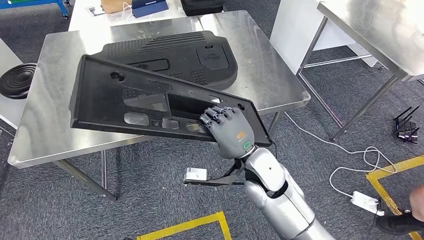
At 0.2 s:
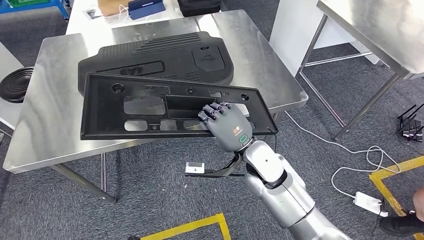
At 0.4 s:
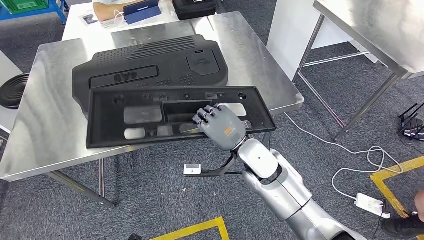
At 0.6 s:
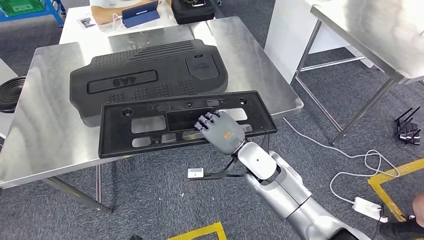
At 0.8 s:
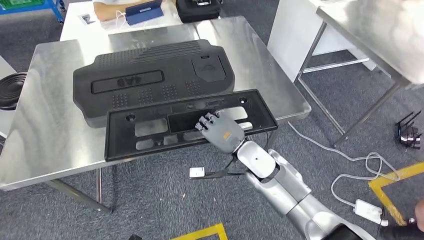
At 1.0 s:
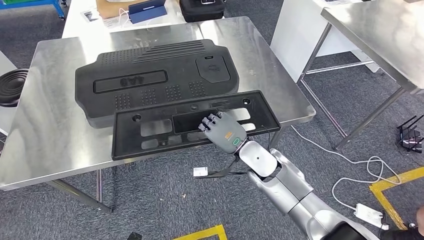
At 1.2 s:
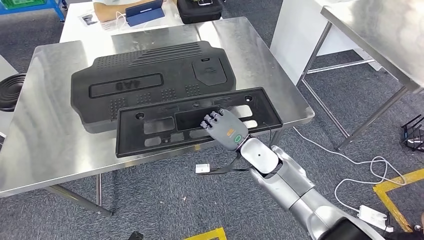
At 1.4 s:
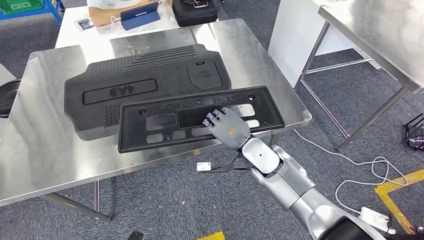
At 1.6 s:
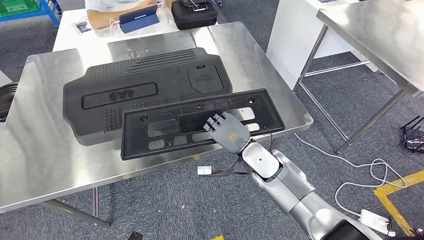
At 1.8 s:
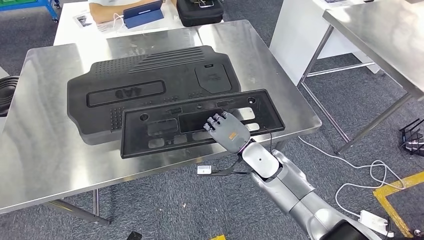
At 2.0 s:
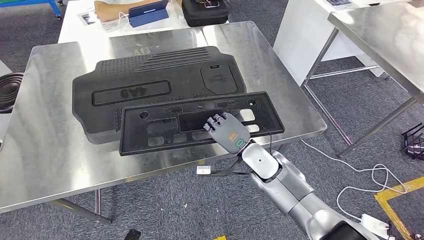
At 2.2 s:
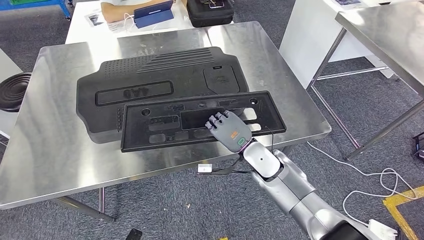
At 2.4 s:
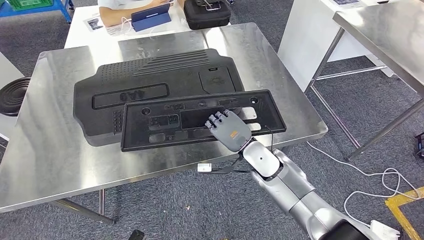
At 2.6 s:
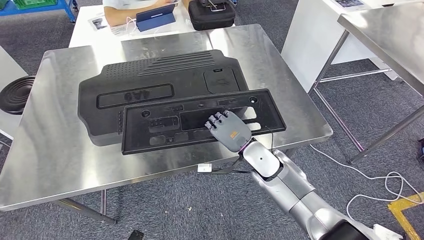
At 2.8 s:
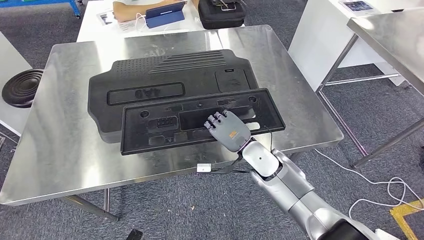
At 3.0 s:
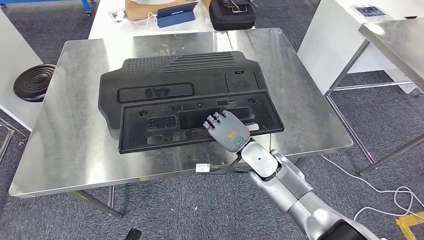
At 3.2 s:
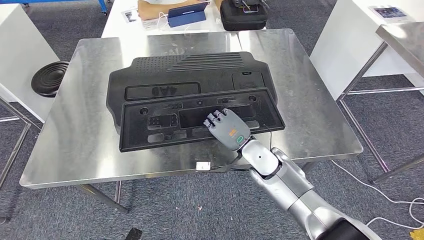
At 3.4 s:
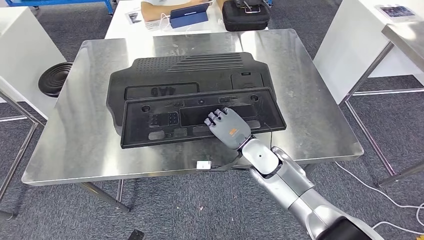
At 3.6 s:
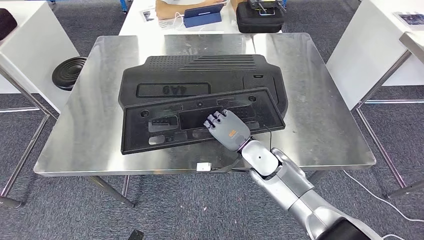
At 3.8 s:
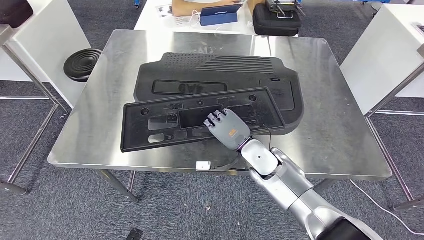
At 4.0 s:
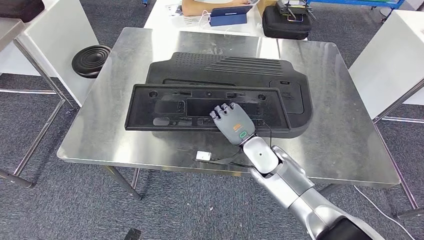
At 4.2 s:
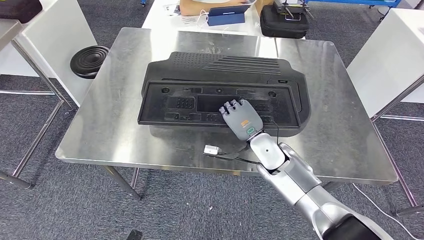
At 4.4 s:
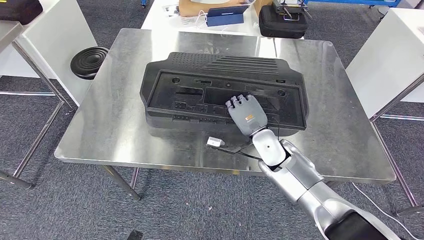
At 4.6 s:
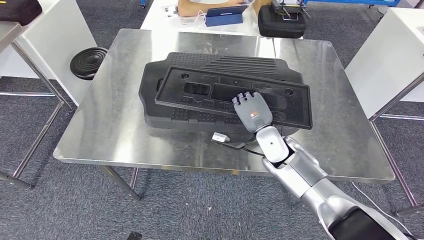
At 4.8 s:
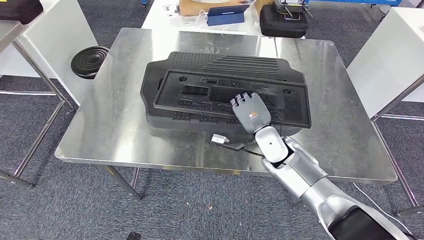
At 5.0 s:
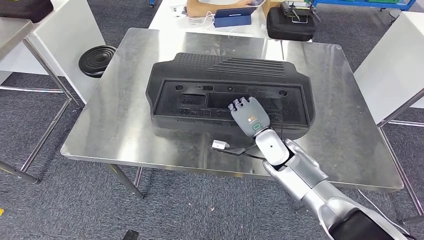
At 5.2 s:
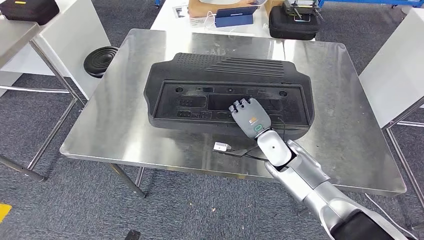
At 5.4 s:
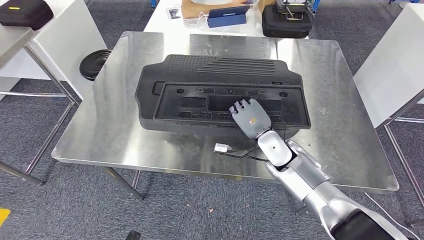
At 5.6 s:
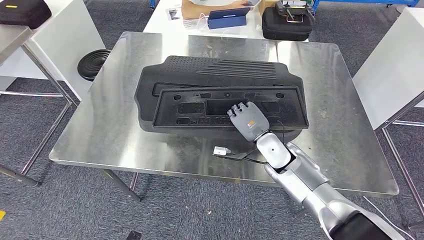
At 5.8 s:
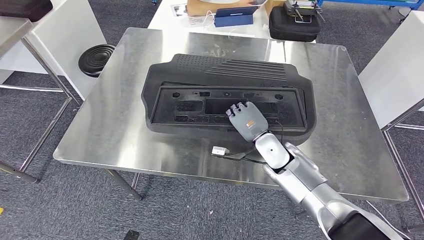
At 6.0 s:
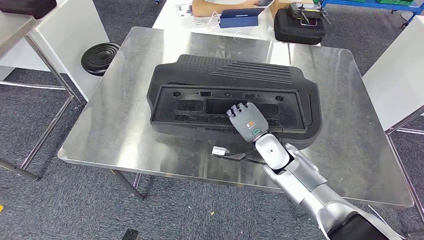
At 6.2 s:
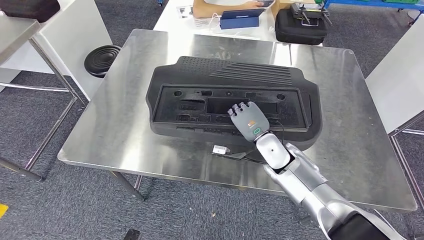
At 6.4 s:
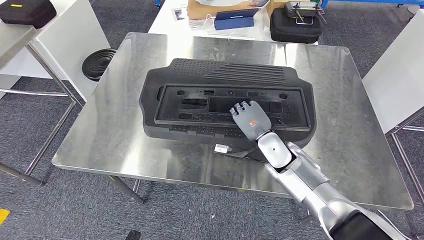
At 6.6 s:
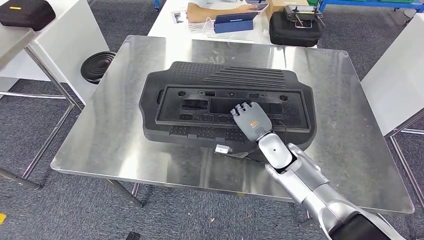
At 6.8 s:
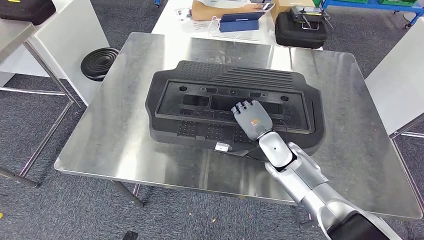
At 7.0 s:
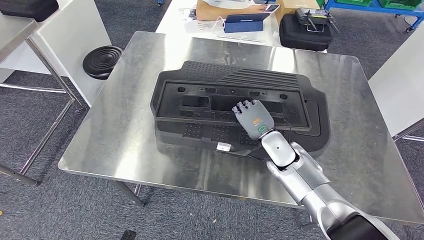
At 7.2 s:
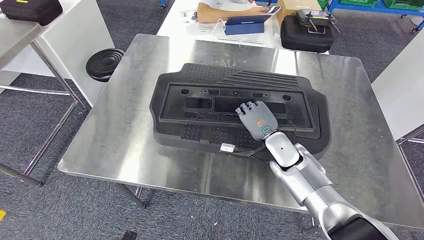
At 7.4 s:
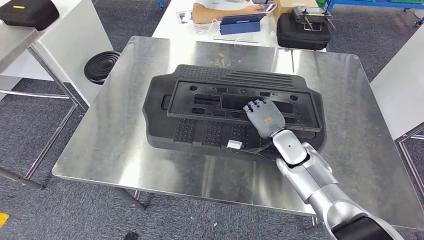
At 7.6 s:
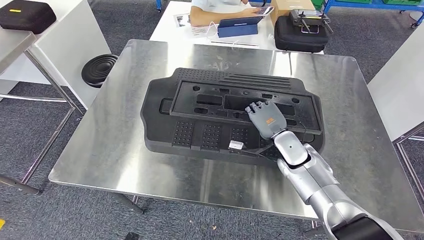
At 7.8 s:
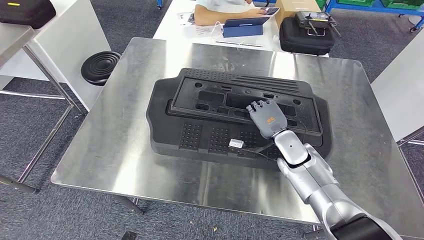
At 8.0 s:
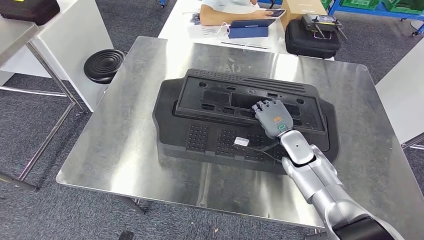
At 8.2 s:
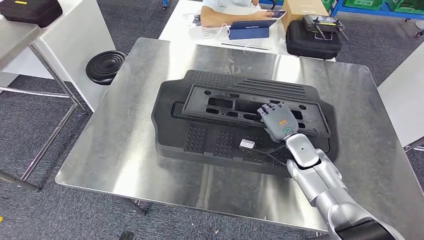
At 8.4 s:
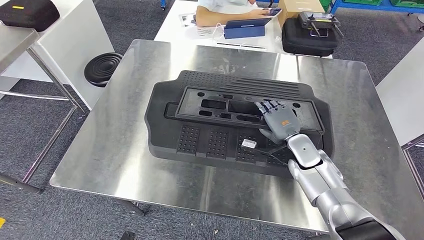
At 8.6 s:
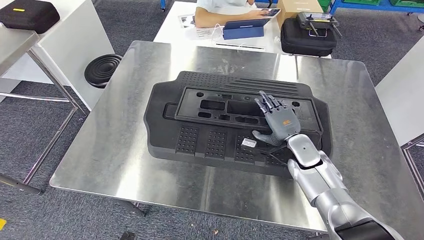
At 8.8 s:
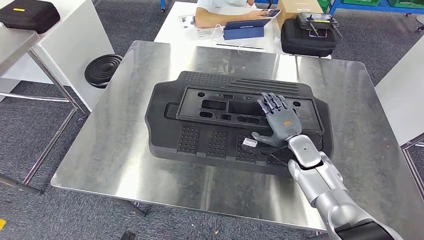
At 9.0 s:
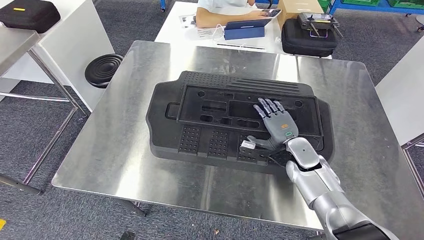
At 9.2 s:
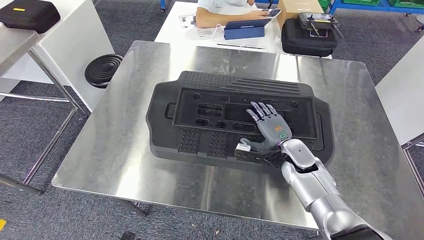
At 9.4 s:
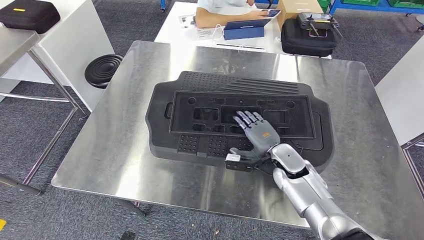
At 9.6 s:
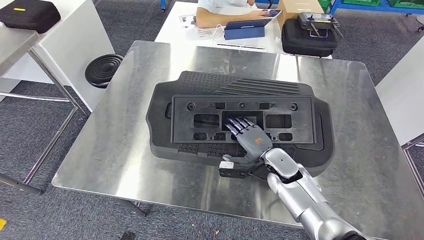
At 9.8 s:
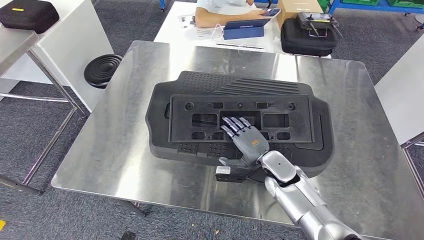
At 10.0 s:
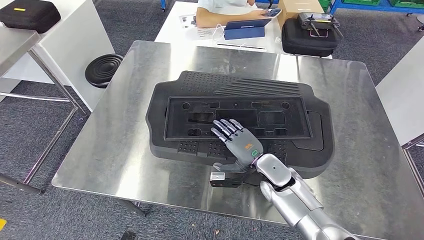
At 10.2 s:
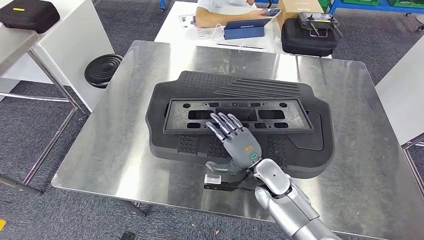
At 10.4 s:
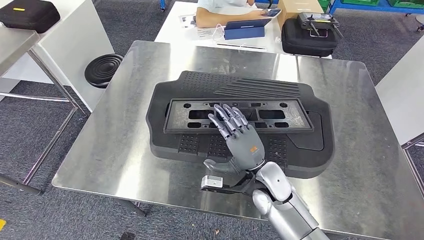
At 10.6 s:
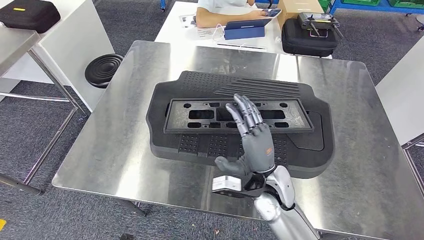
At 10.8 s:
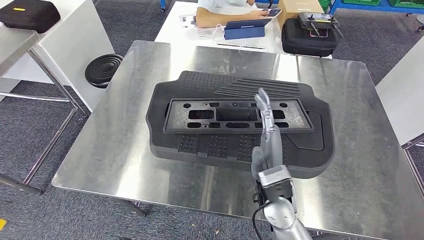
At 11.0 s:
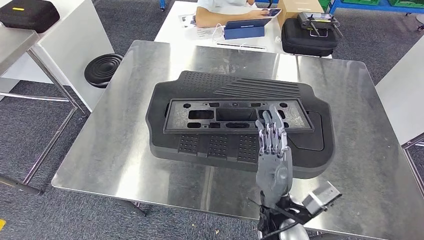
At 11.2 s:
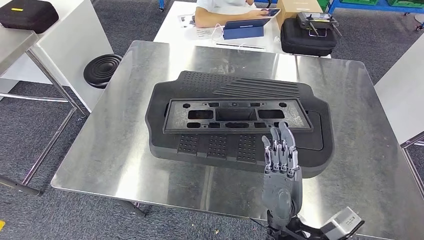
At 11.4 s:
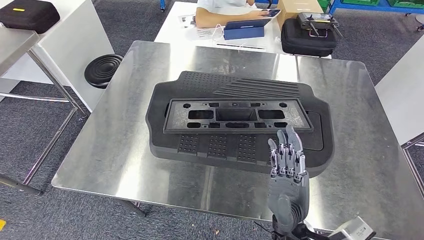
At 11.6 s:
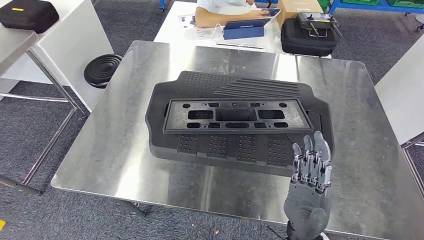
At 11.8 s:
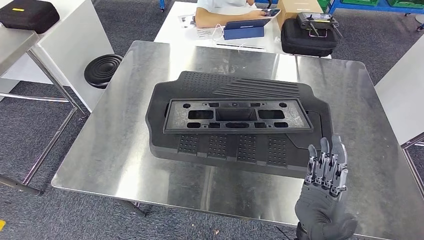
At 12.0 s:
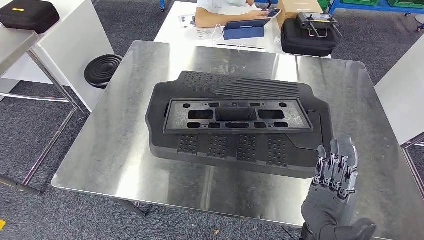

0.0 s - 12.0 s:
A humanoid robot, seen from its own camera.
Step, 0.0 s - 11.0 s: Insert the large material into the corresponding hole on the workbench.
9.0 s - 10.4 s: The right hand heads to the left and backward, covering approximately 15 cm.
10.4 s - 12.0 s: The right hand travels backward by some 15 cm.

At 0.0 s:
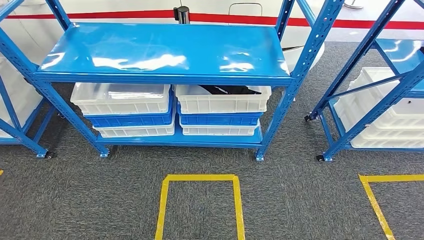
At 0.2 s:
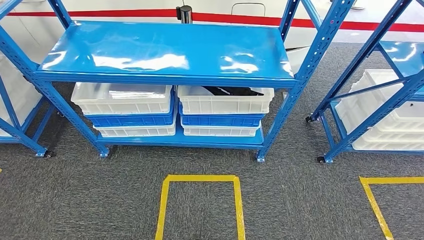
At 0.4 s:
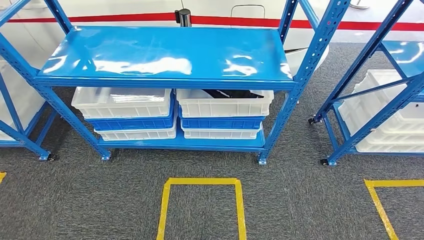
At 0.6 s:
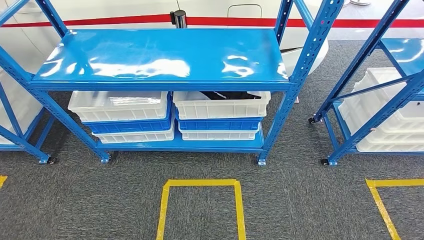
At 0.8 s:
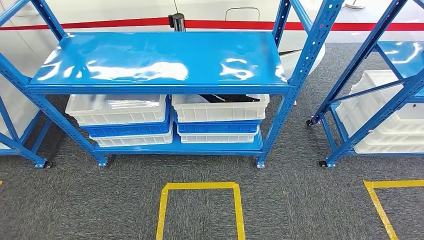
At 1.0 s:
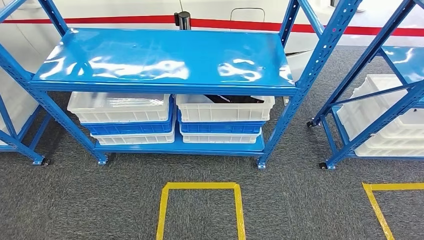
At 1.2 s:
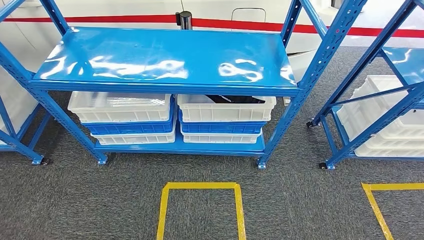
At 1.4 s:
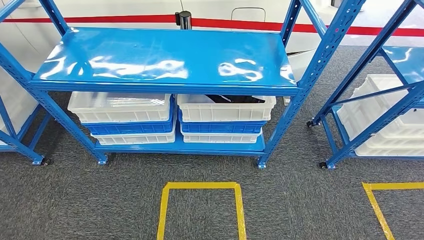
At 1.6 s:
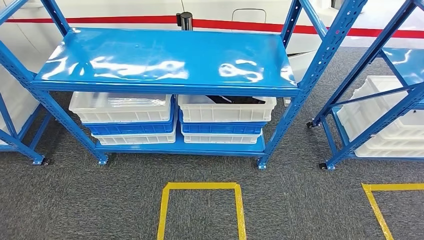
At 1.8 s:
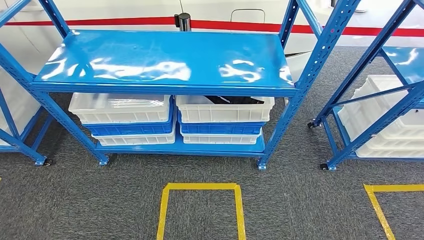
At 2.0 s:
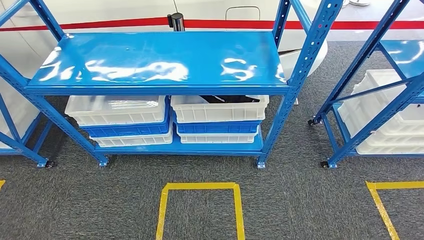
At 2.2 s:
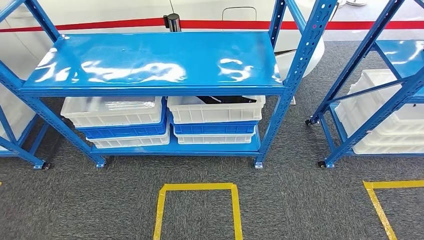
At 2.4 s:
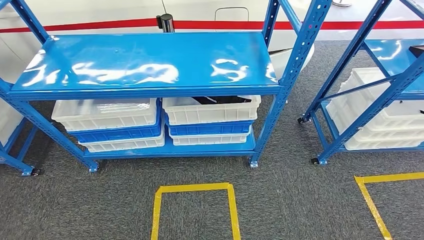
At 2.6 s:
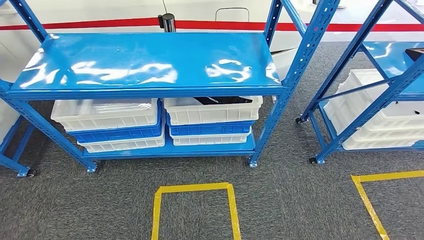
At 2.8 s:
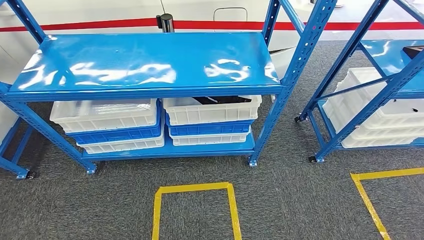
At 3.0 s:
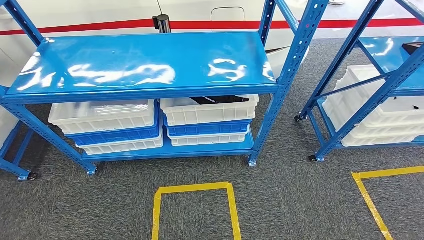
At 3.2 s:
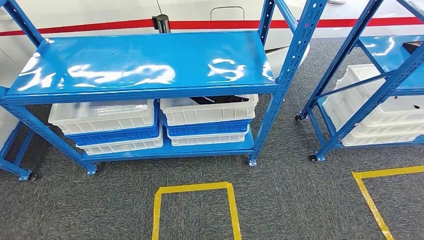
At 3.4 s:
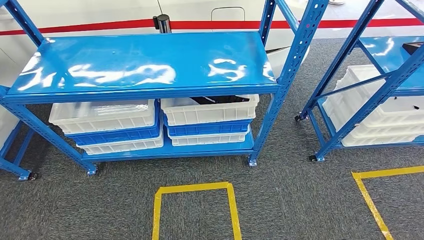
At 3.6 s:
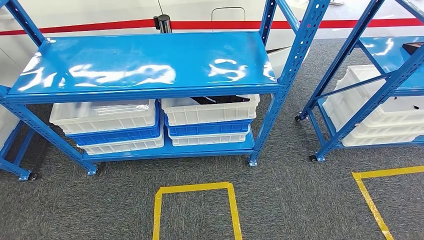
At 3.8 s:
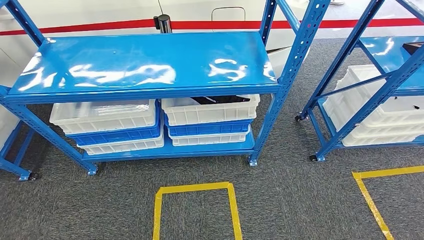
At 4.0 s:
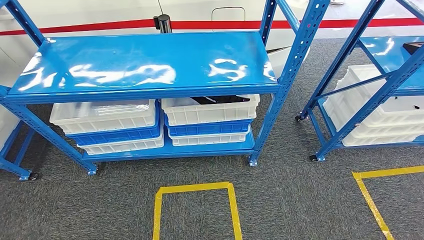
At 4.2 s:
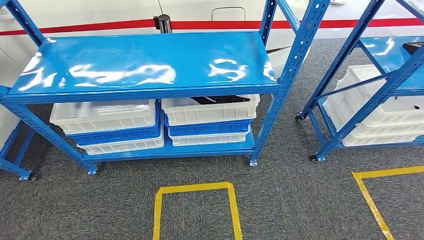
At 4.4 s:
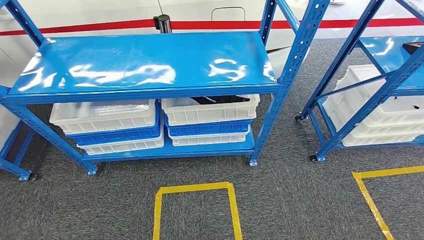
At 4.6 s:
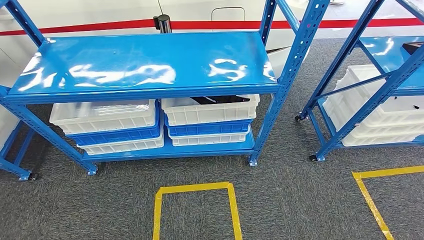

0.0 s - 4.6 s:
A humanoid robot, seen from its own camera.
Step, 0.0 s - 4.6 s: Move to the initial position of the shelf.
3.0 s - 4.6 s: The hands make only small movements.
